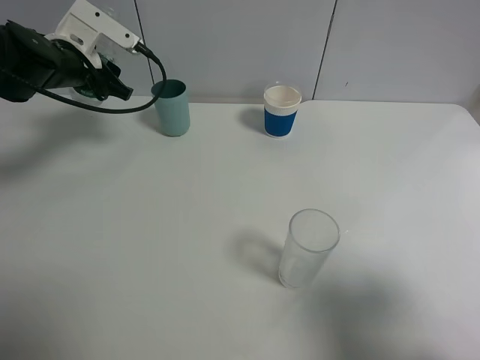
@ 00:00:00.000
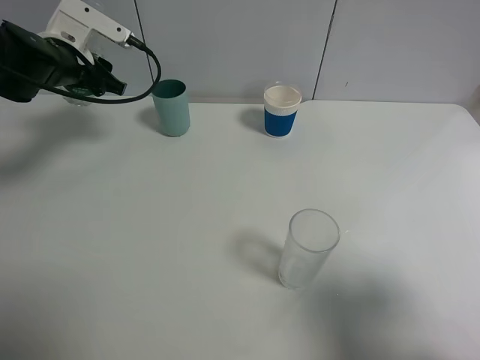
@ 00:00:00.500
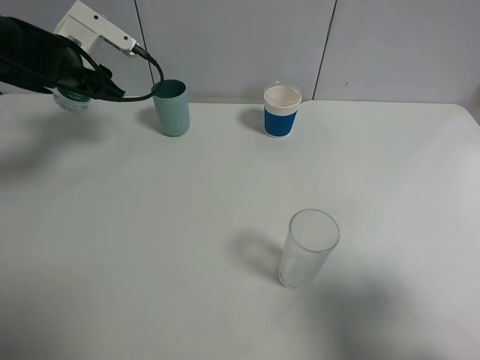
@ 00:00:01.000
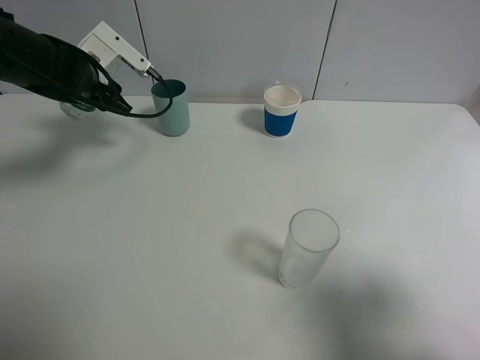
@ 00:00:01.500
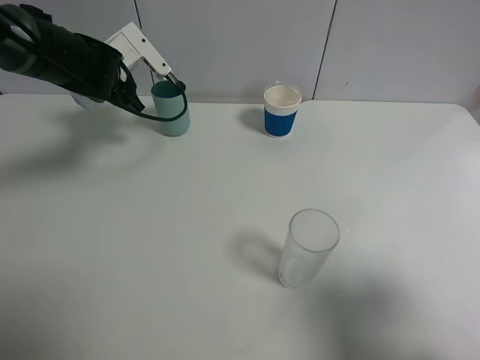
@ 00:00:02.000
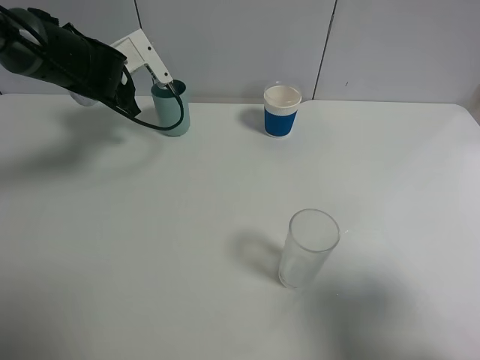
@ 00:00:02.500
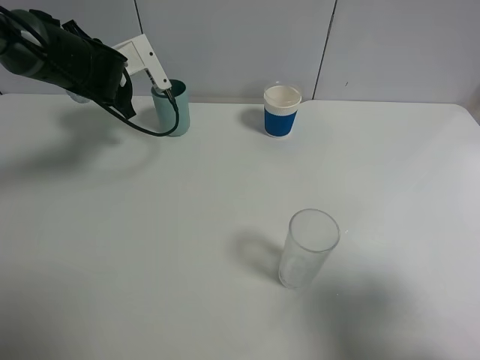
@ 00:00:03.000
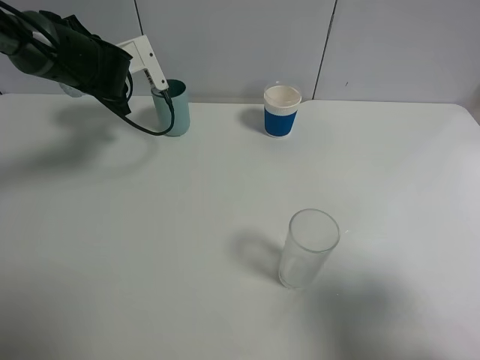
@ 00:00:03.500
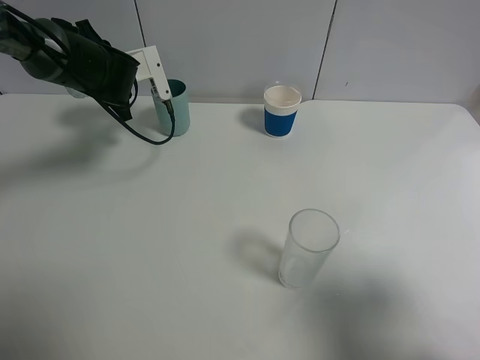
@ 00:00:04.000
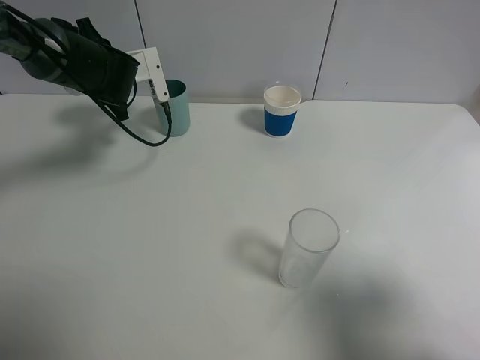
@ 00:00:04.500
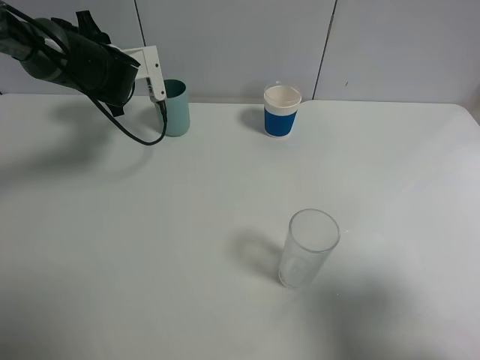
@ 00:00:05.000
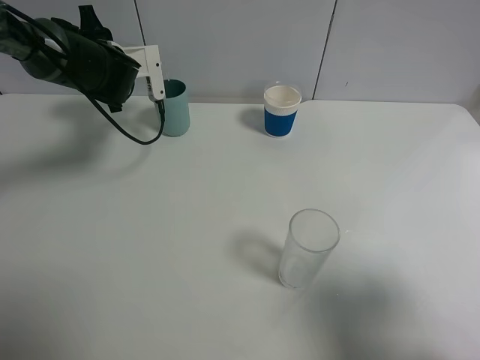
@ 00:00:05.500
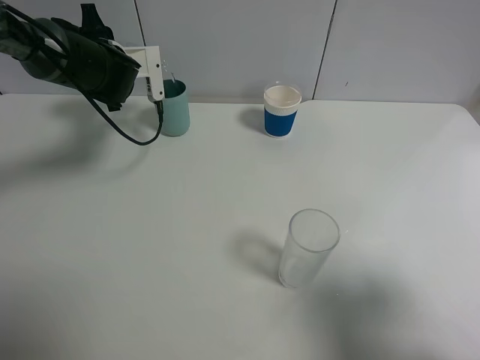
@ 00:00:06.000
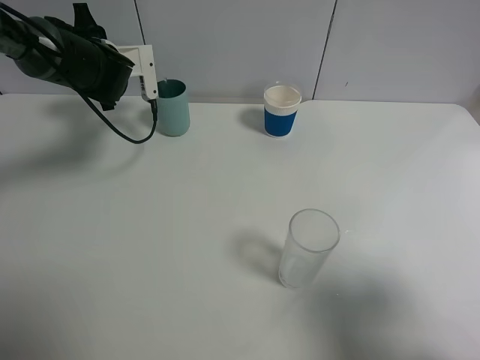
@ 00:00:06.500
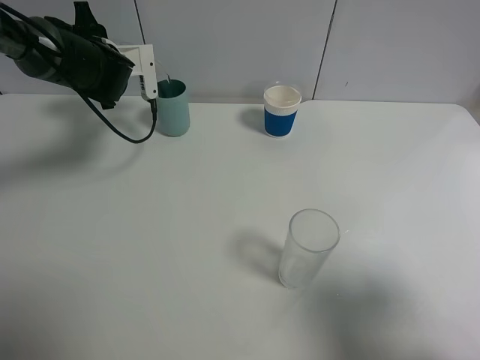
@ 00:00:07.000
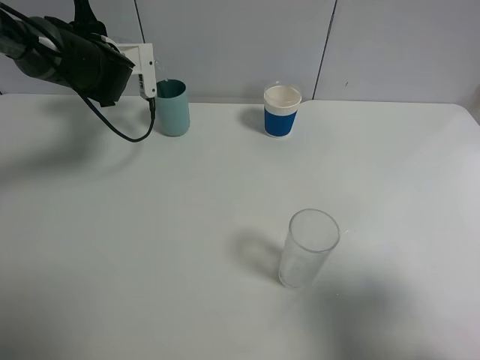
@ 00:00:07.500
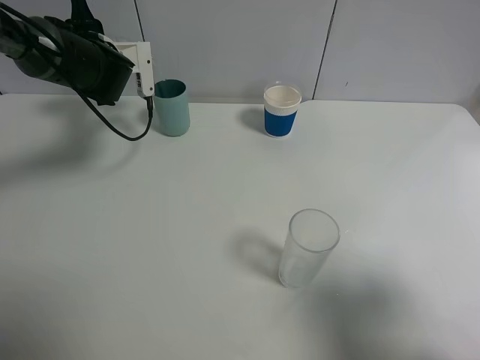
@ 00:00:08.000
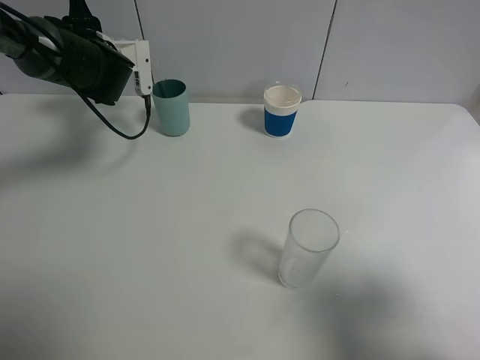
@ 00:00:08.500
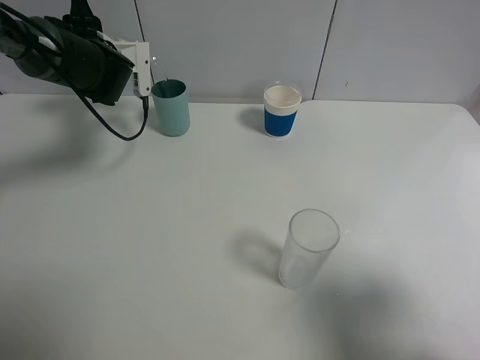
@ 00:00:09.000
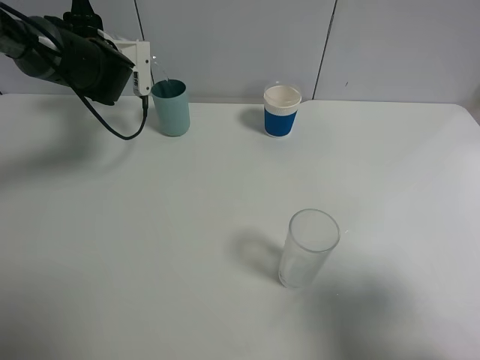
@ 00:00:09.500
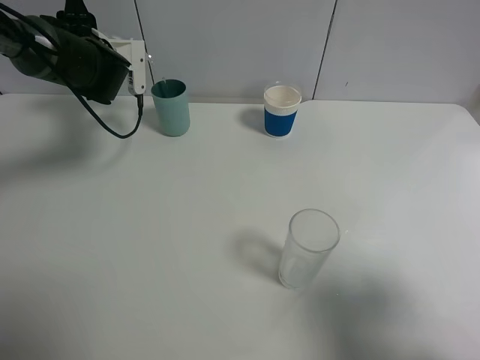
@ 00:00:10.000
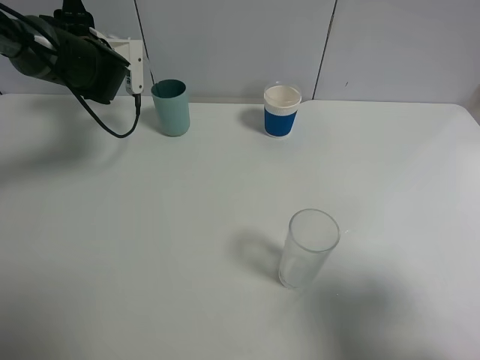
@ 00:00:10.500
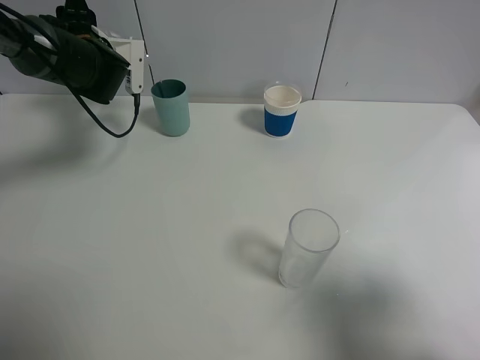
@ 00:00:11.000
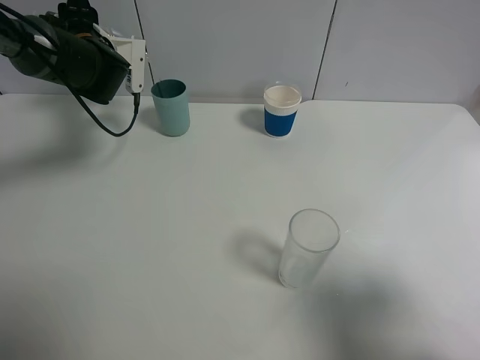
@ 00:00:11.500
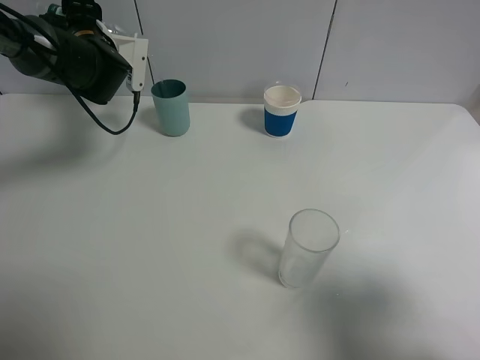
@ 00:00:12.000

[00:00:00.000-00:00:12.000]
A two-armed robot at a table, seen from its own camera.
Task of the whole recording: use a gripper to hold the bottle of the drink and pour it into a random cup.
00:00:04.000 to 00:00:06.000: The grippers move only a little.
00:00:06.000 to 00:00:08.000: Both grippers stay about where they are.
00:00:08.000 to 00:00:12.000: There are only small adjustments of the grippers.

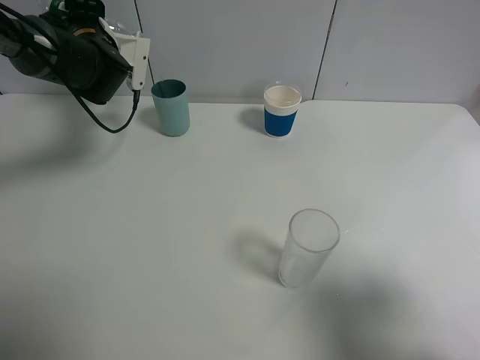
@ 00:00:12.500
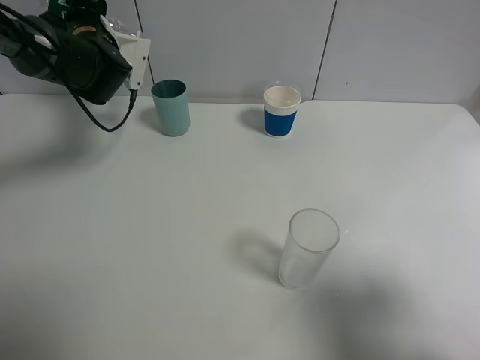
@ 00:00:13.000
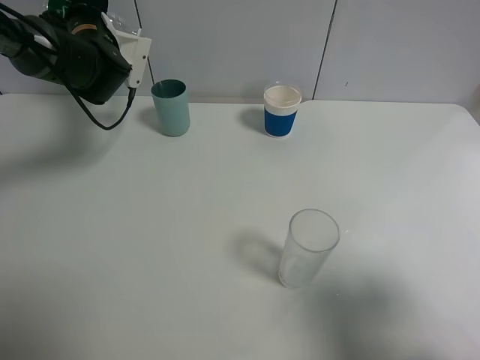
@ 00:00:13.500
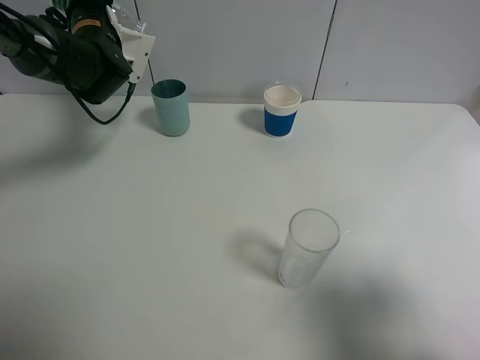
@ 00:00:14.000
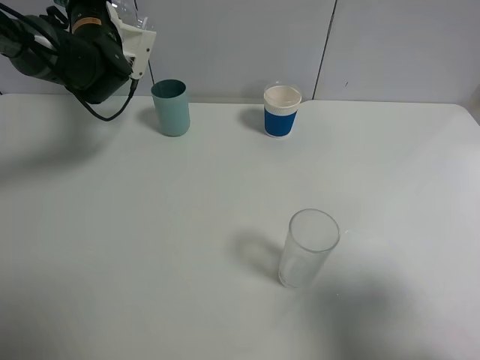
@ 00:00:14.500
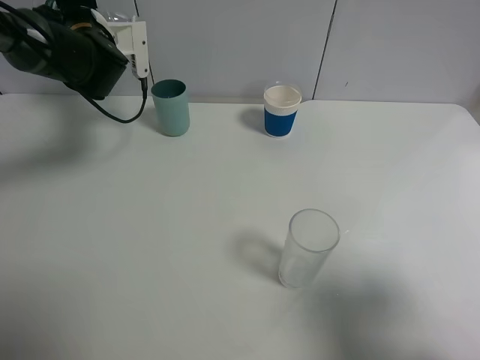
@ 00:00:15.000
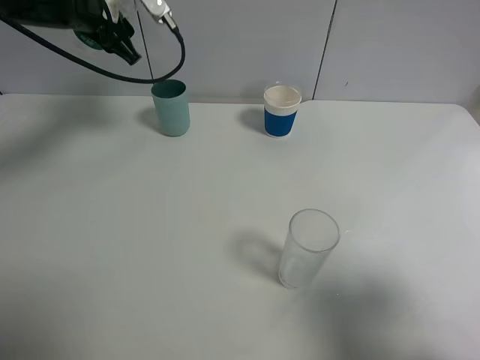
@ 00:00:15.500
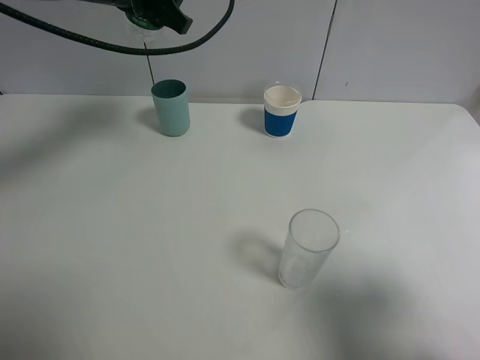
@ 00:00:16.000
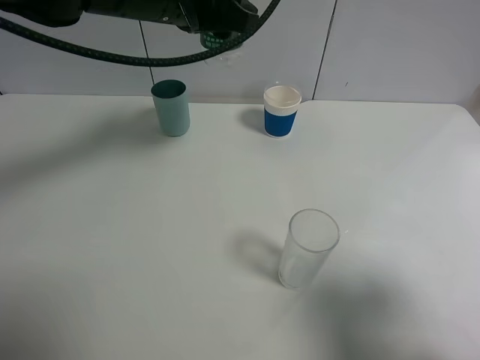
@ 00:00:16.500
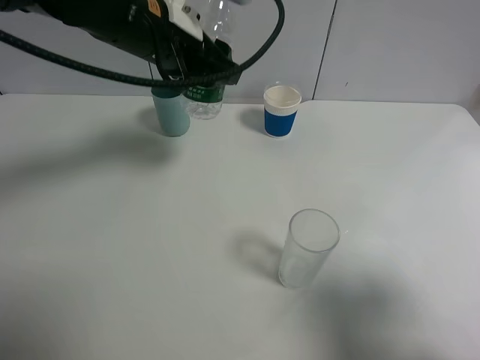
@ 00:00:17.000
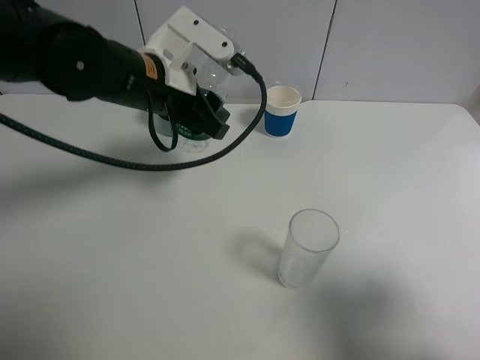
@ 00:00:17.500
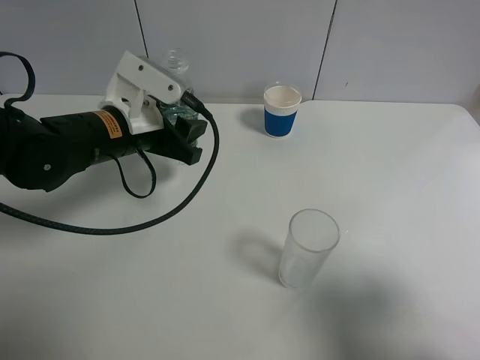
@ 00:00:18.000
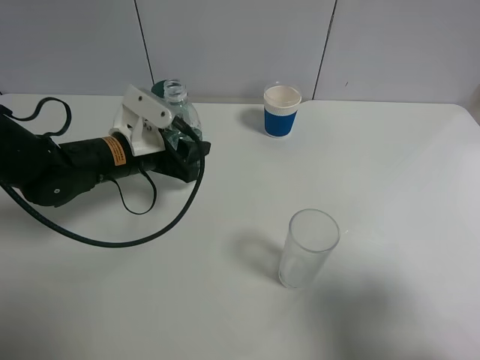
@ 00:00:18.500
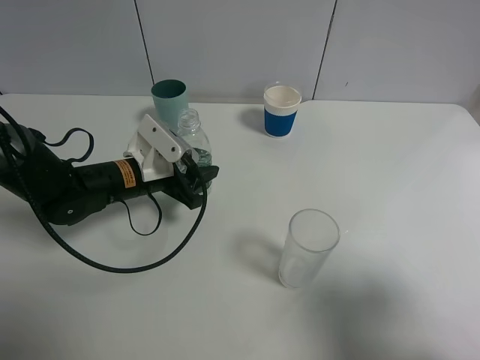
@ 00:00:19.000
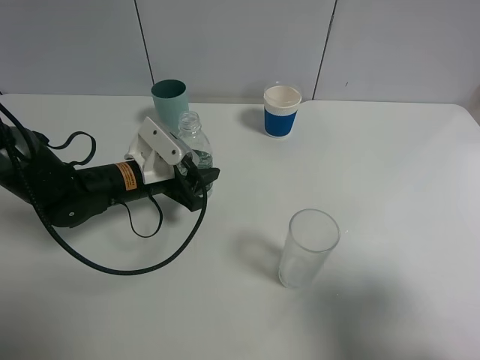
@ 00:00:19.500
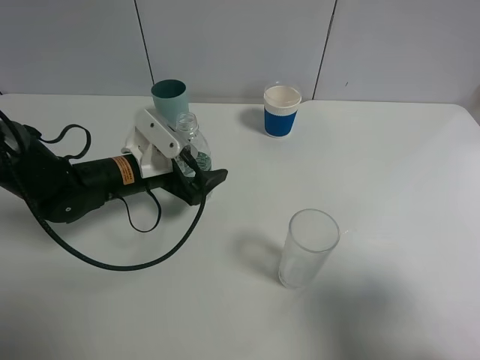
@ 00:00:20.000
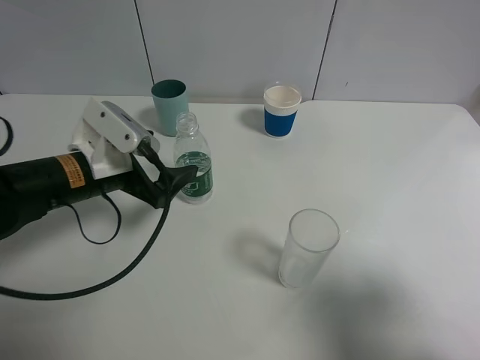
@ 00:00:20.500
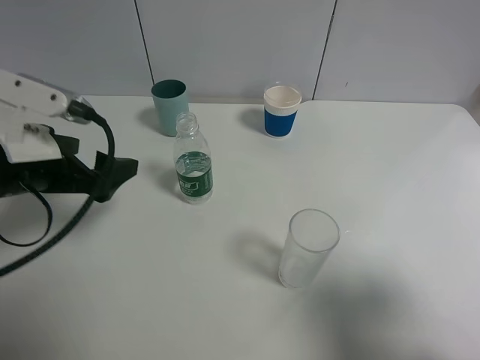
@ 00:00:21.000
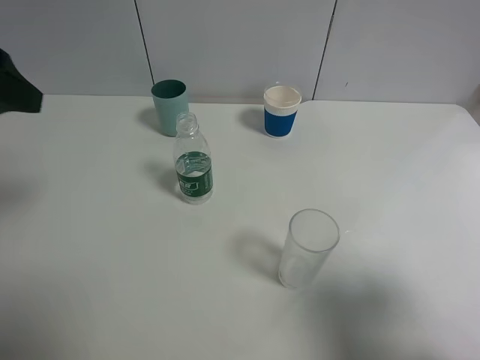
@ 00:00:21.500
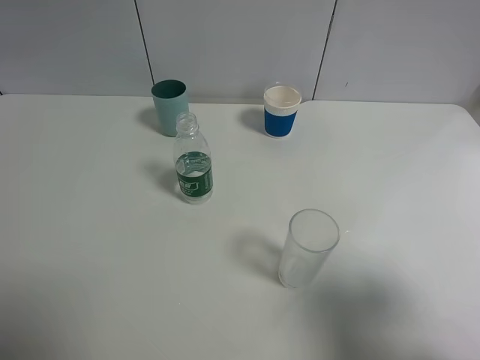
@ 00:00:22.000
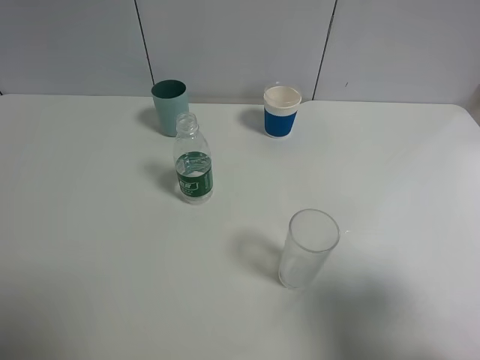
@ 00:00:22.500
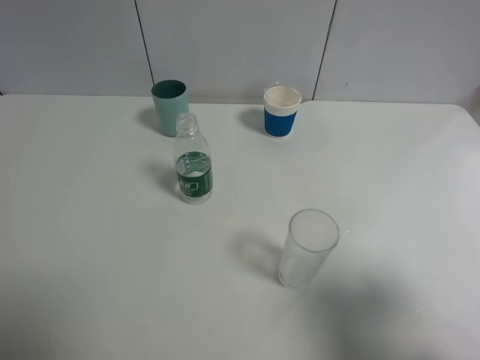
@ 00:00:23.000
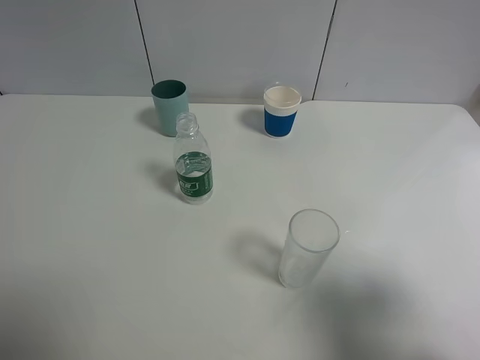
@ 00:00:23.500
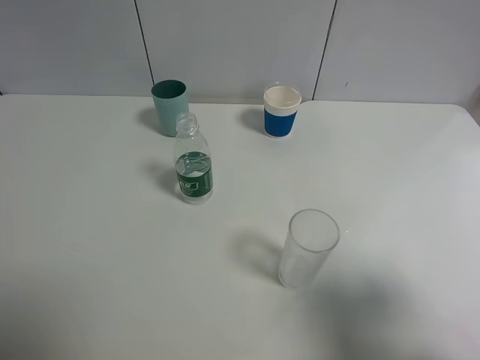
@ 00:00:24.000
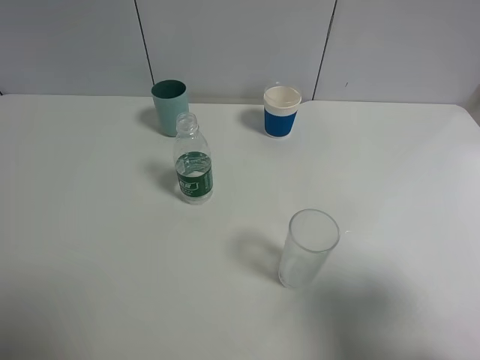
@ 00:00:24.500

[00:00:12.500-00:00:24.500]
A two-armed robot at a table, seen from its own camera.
Task of the whole recording: use a gripper to hold the bottle of the drink and pour it into a random cup.
Step, 00:00:12.500 to 00:00:14.500: Pour the mineral water into the cyan cup with the left gripper.
Step, 00:00:15.000 to 00:00:20.000: Place the mineral water bottle on the table with the left gripper.
00:00:12.500 to 00:00:14.500: The grippers stay close to where they were, moving slightly.
00:00:14.500 to 00:00:16.500: The left gripper travels to the right, backward and upward by about 20 cm.
00:00:16.500 to 00:00:18.500: The left gripper shifts roughly 20 cm downward.
00:00:18.500 to 00:00:20.500: The left gripper heads backward, covering about 5 cm, and opens its fingers.
00:00:20.500 to 00:00:22.500: The left gripper is displaced upward, backward and to the left by about 40 cm.

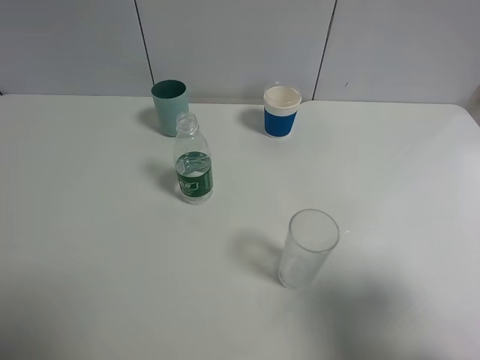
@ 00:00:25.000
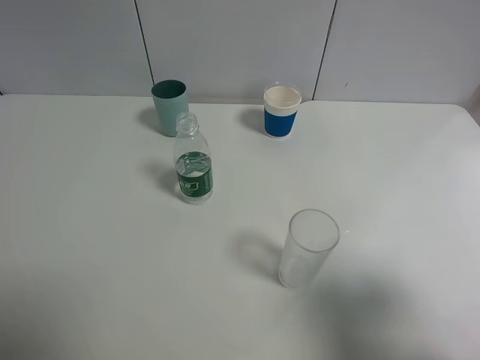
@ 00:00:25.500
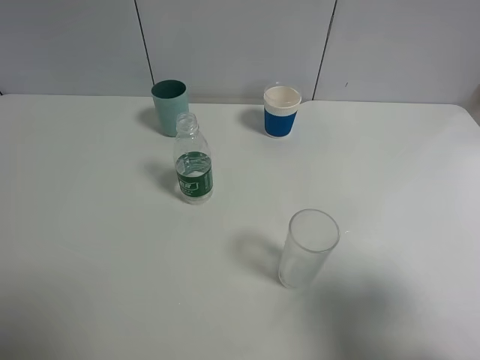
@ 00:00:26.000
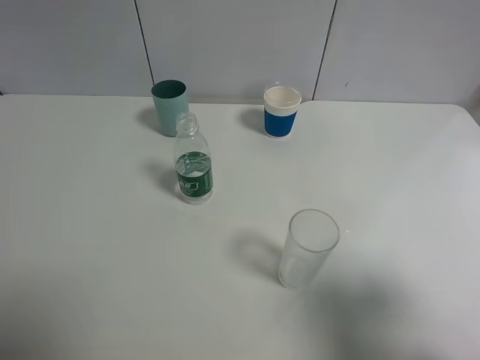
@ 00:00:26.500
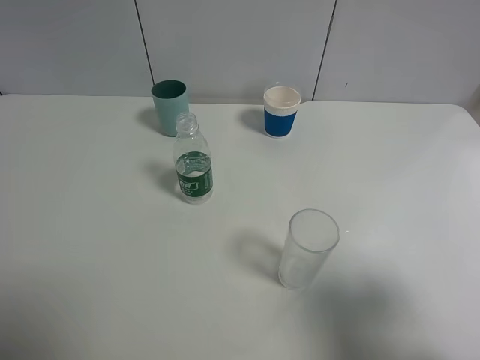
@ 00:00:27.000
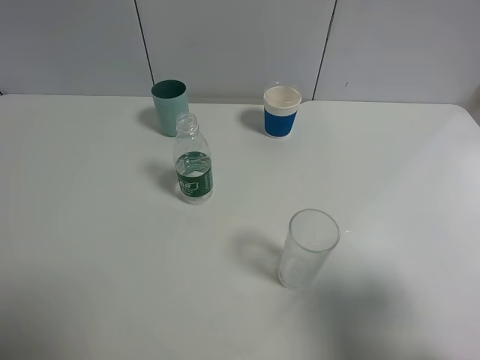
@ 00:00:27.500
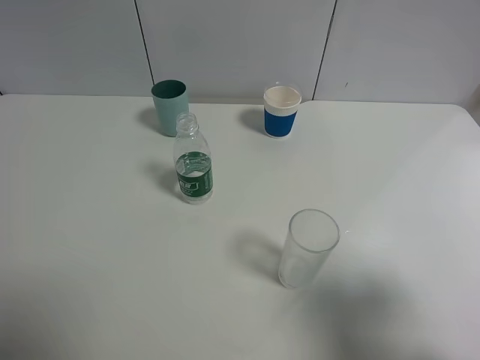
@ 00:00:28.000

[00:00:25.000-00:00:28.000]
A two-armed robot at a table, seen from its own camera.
Task of the whole recording: use a gripper to hold the bottle of the drink and pour it into a random cup.
00:00:26.500 to 00:00:28.000: Neither gripper changes place.
